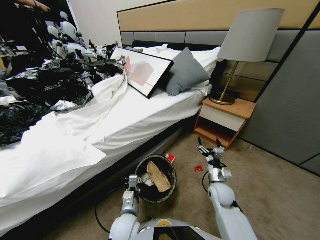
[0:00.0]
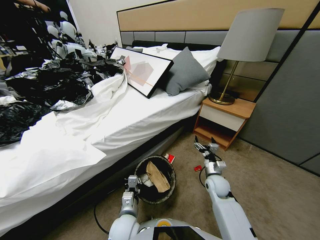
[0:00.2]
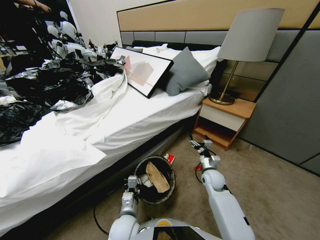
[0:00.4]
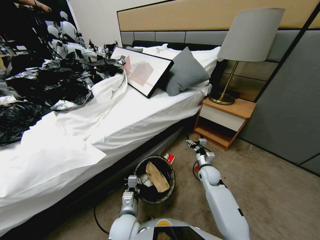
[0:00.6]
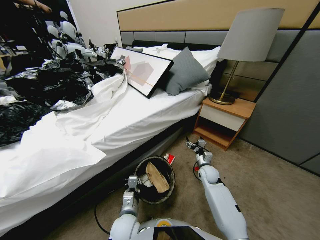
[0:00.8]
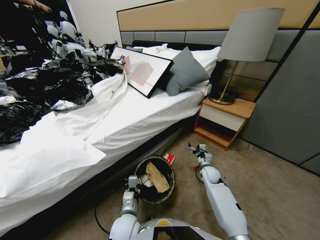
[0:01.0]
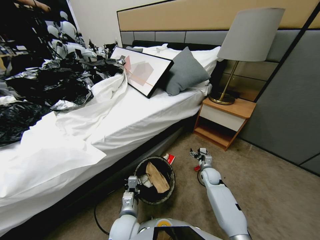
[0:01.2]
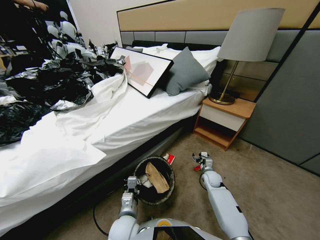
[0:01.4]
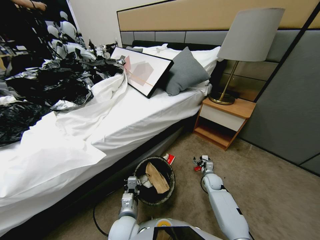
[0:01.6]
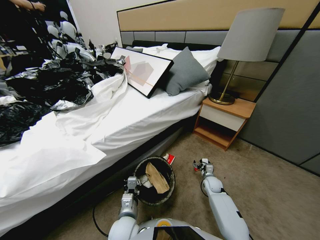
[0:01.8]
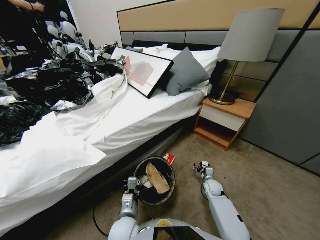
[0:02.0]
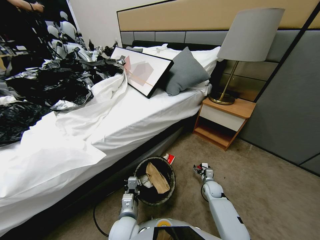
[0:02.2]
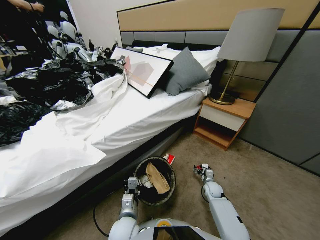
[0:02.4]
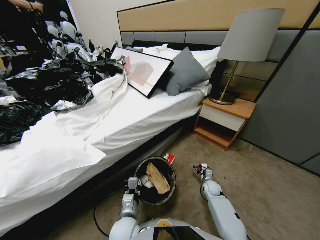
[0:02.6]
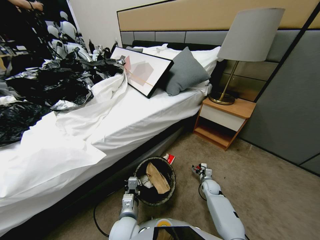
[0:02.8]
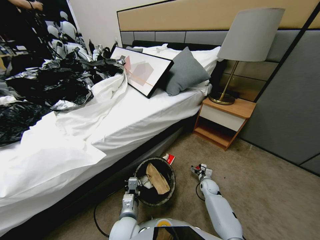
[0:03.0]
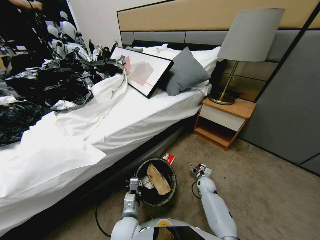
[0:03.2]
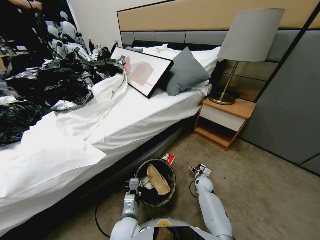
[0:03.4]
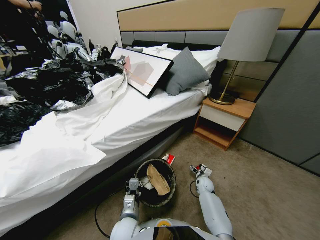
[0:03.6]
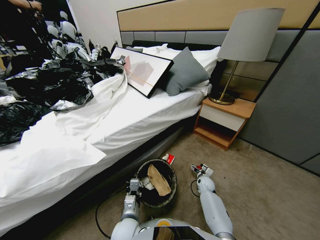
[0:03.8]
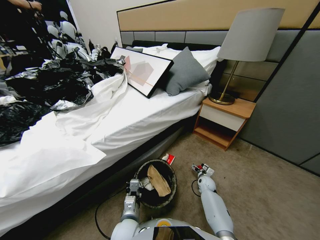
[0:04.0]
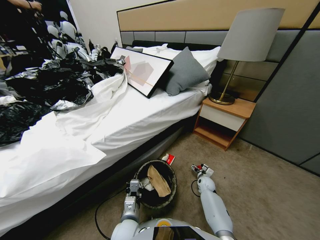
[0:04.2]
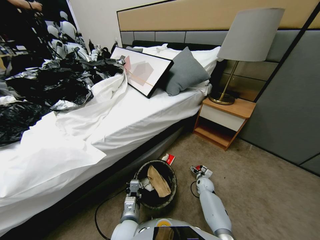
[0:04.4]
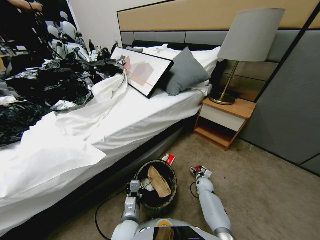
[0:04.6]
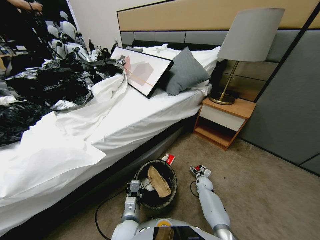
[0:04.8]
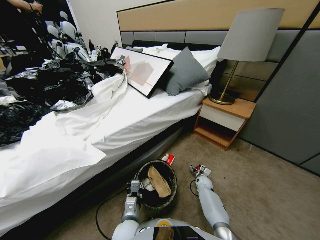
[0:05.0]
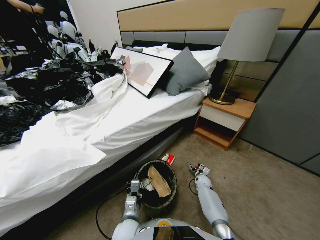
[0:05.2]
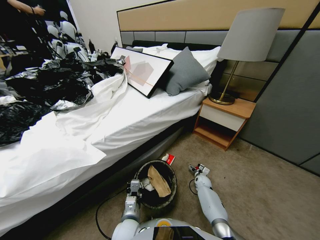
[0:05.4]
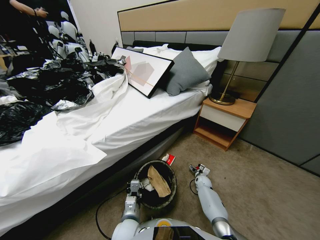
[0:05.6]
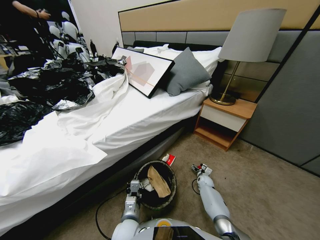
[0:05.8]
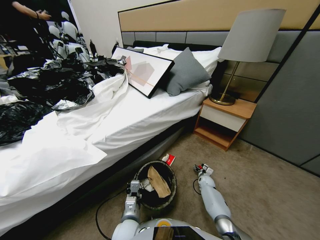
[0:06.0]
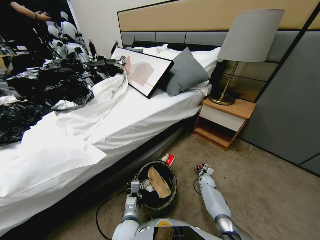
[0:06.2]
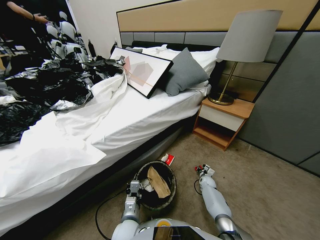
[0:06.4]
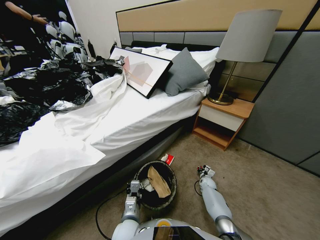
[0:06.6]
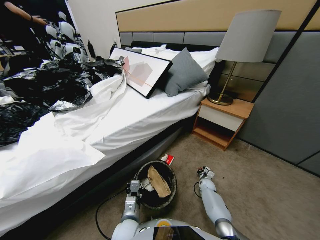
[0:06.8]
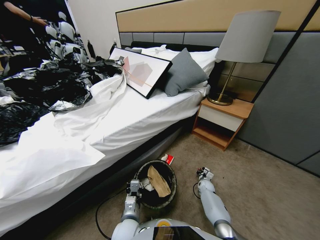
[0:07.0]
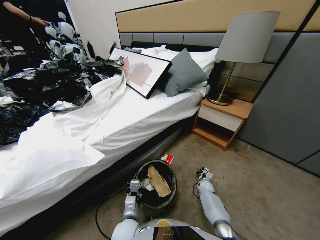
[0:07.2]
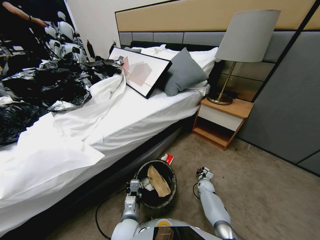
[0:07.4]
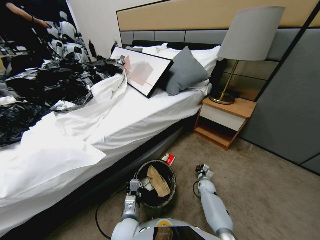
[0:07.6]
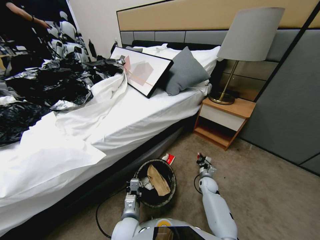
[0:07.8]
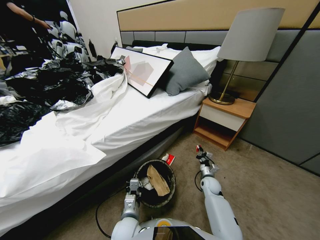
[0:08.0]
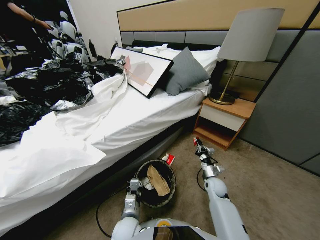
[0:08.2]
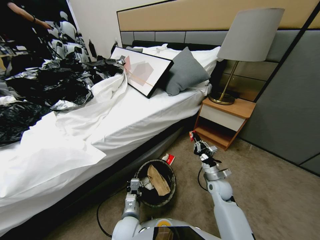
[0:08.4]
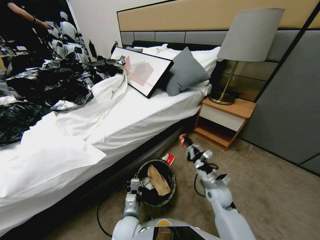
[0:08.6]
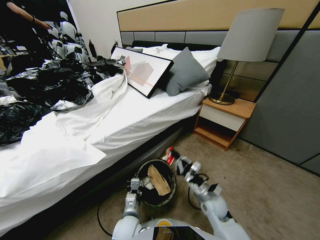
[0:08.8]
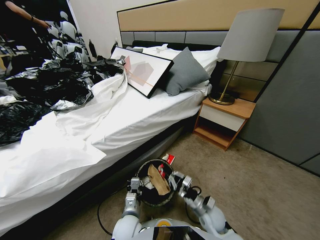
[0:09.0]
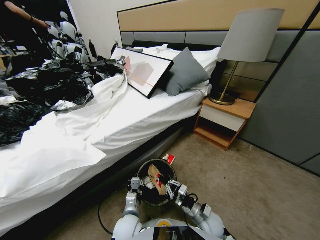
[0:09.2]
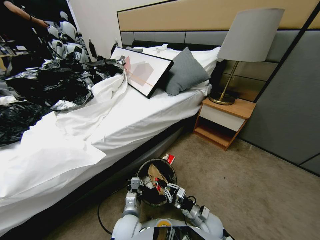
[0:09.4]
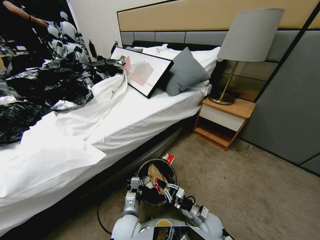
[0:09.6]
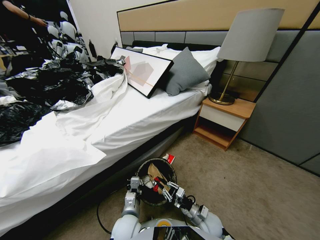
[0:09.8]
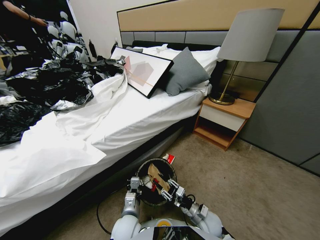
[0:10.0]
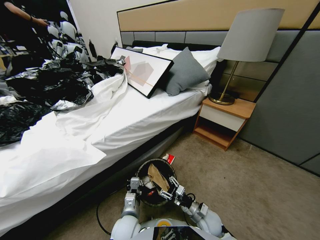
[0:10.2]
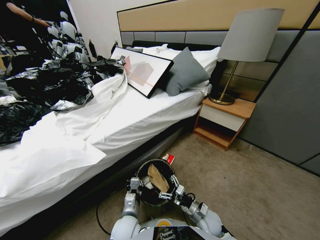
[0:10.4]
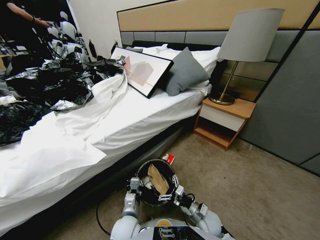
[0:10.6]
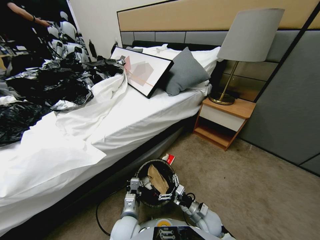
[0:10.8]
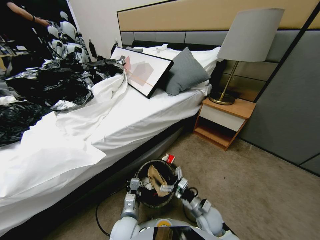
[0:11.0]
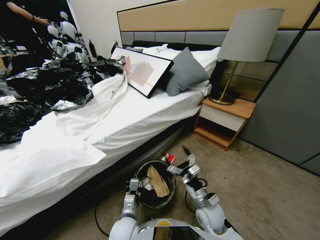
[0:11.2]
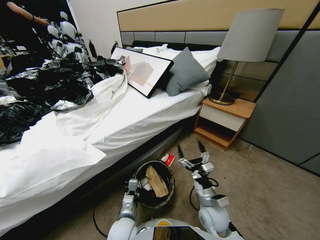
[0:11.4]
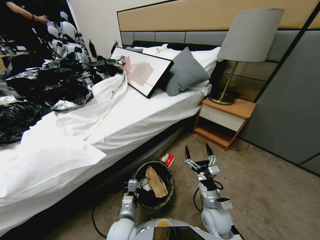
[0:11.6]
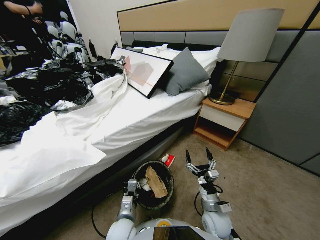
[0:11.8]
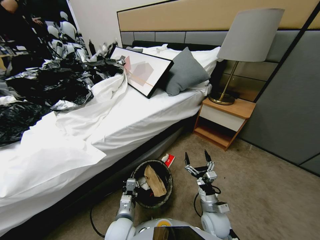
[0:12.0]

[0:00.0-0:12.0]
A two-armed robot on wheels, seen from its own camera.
Task of the whole recording: Pick up the trash bin, then pick up the garbage from the floor and place it into the trash bin.
0:00.0 to 0:01.6: The right gripper travels downward and forward by approximately 15 cm.
0:03.0 to 0:04.4: The grippers stay close to where they were, moving slightly.
0:04.4 to 0:06.0: The right gripper closes.
0:06.0 to 0:07.6: The right gripper moves upward, approximately 5 cm, and closes.
0:07.6 to 0:09.0: The right gripper travels backward, upward and to the left by approximately 20 cm.
0:09.0 to 0:10.4: The right gripper opens its fingers.

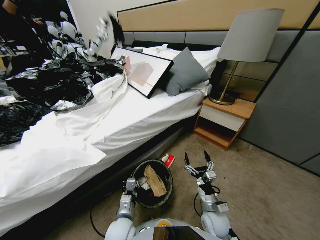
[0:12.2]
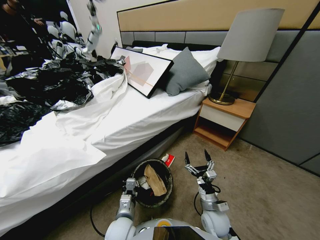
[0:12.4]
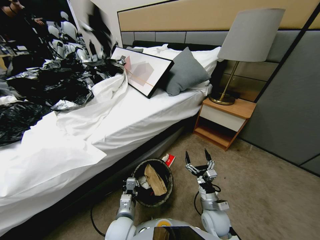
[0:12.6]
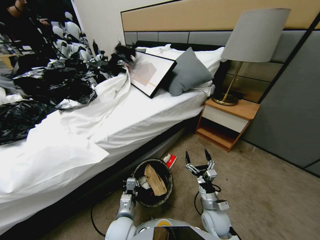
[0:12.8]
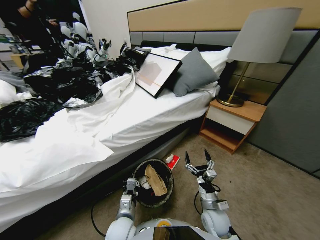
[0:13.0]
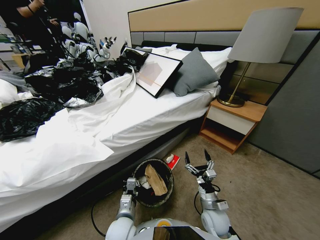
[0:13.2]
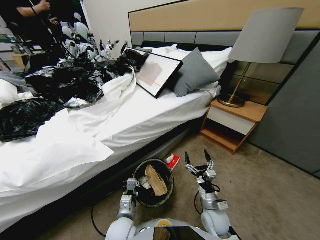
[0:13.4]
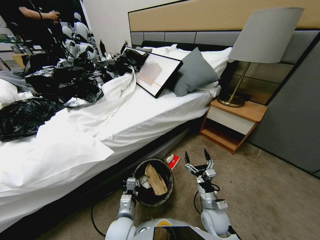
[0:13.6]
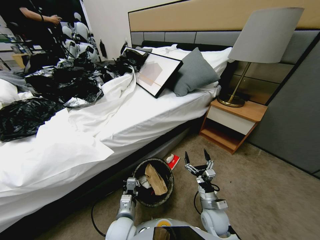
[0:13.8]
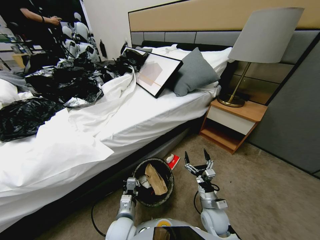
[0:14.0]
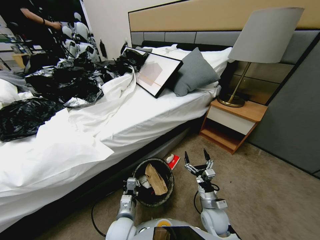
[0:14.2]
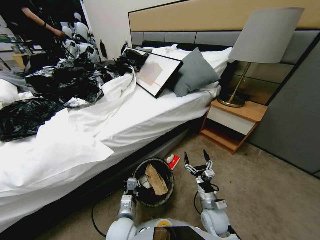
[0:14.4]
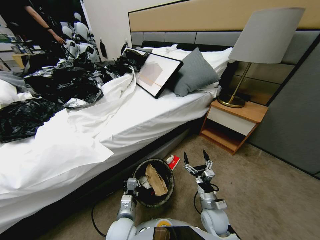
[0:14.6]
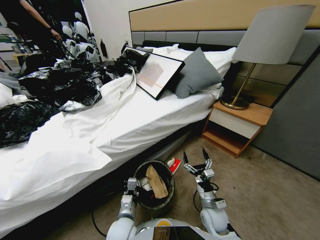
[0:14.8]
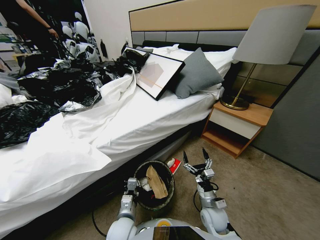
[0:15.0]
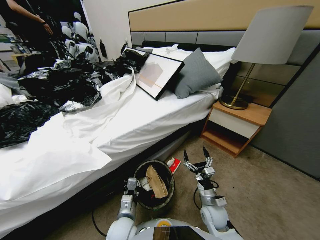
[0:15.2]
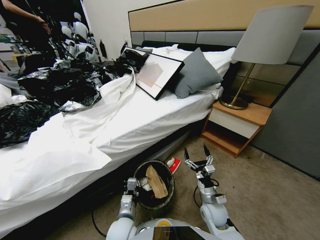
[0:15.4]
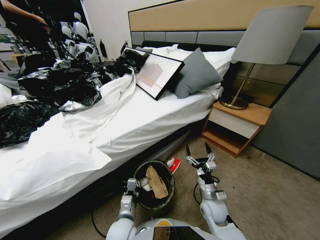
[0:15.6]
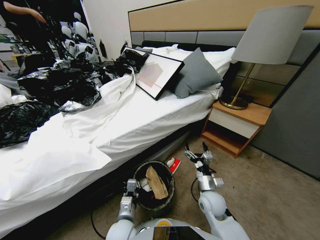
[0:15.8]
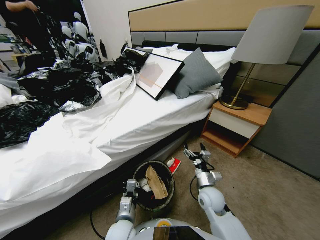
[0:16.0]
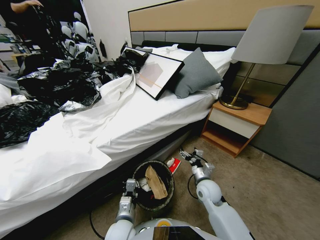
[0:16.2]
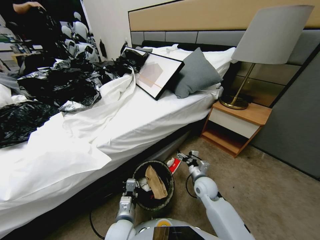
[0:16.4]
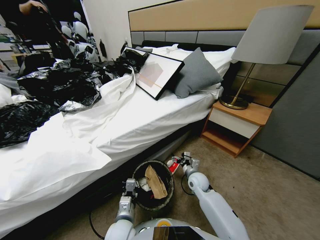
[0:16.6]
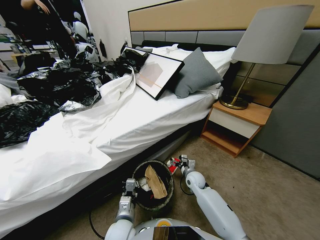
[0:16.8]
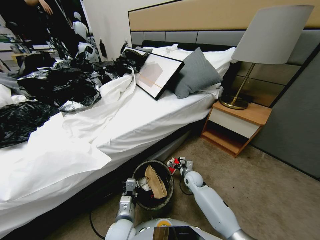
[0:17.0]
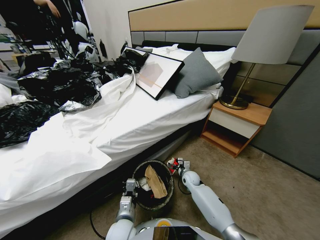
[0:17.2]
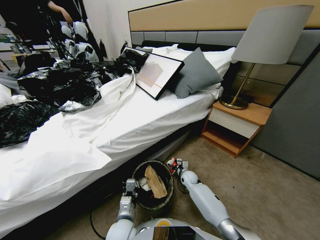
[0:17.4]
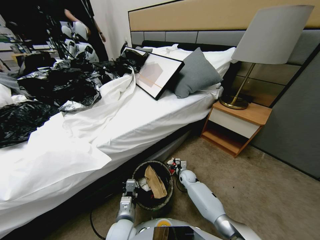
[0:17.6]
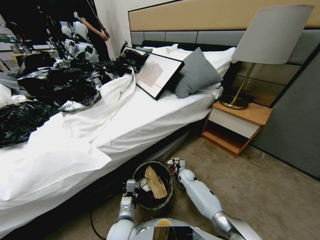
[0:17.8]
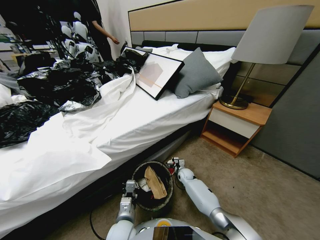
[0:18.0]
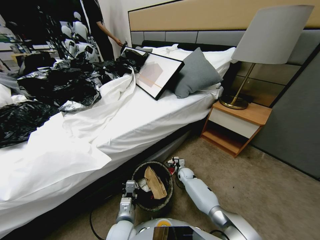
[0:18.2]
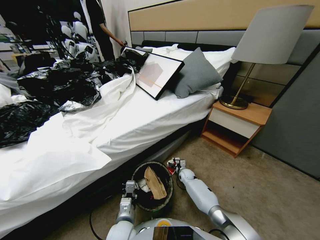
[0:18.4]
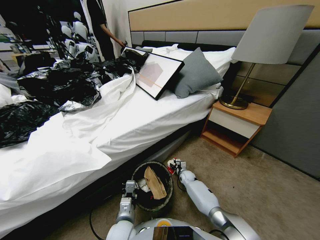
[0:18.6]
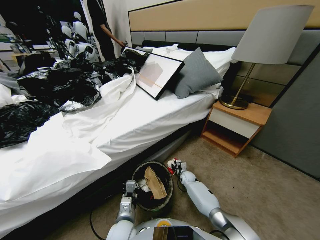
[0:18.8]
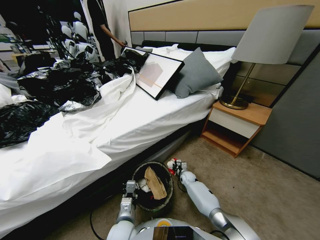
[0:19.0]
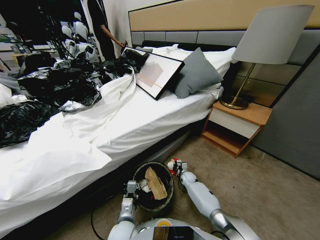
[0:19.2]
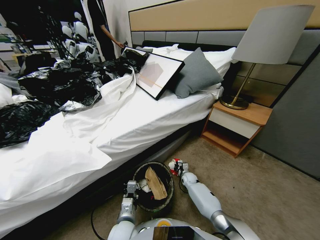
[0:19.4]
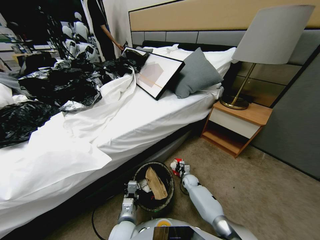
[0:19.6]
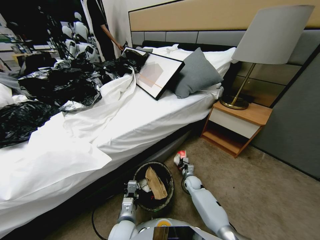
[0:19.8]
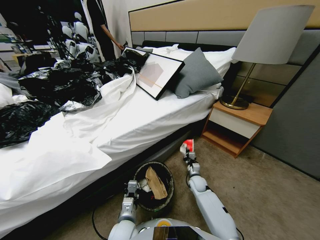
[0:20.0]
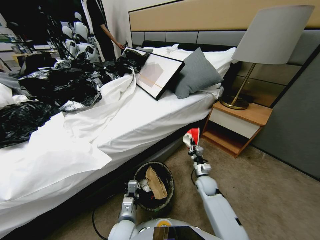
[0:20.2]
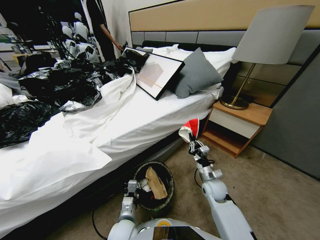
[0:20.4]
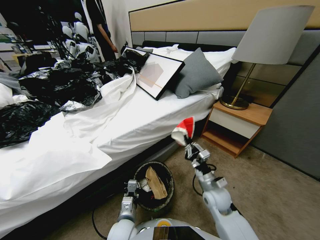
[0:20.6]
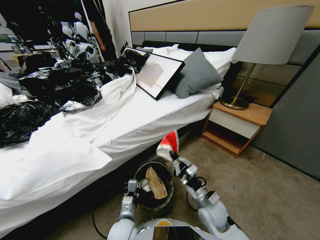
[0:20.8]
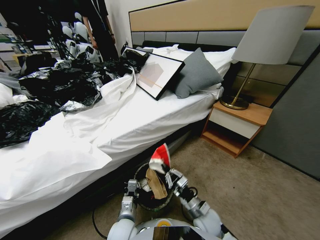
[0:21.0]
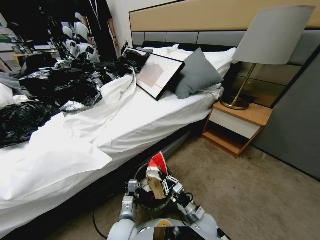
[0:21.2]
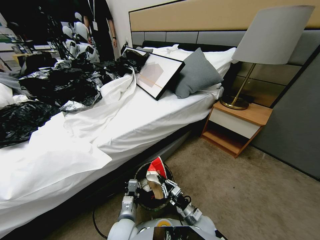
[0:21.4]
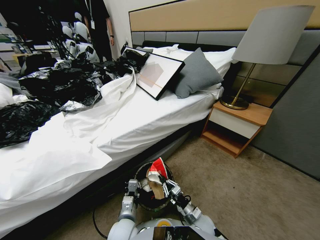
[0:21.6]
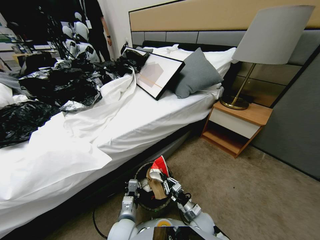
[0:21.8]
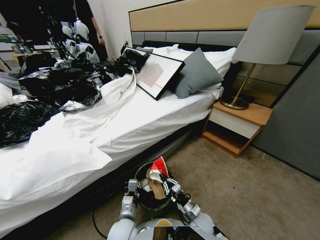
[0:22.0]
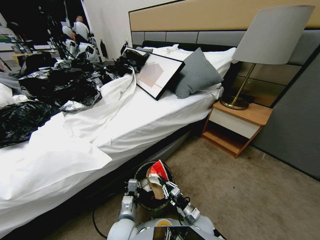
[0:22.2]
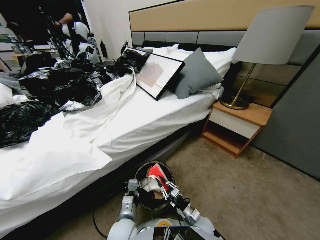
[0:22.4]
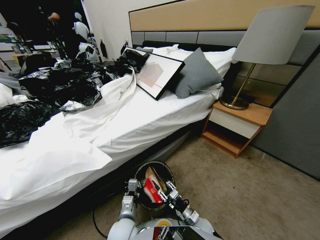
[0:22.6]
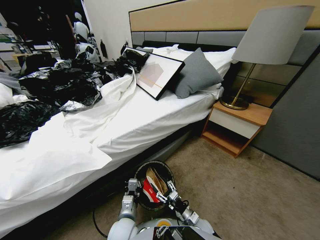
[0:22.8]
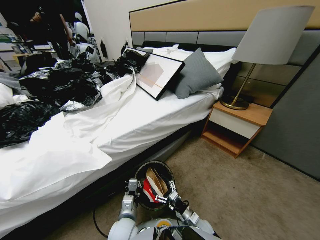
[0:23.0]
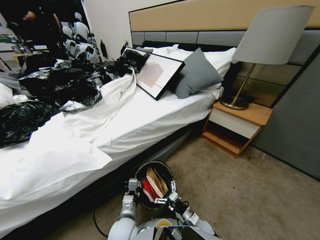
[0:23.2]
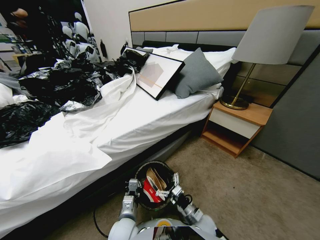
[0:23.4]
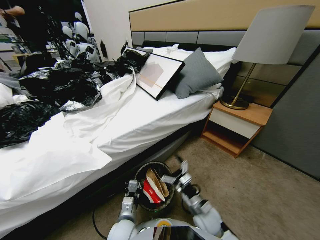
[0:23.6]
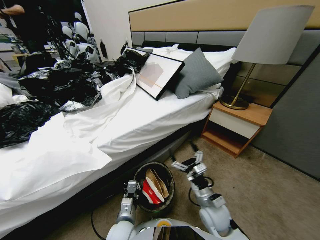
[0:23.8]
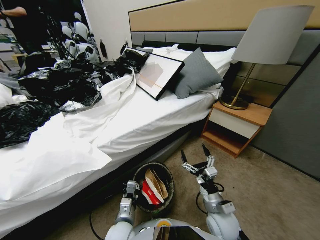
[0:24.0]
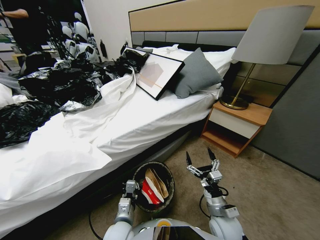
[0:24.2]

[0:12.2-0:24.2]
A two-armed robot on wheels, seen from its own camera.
Task of the whole recording: Pick up the trash bin, then pick up the garbage from the floor and place it into the trash bin.
0:15.2 to 0:16.6: The right gripper shifts about 15 cm forward.
0:16.6 to 0:18.2: The right gripper travels downward and forward by roughly 15 cm.
0:18.2 to 0:19.8: The right gripper heads backward, covering some 5 cm, and closes up.
0:19.8 to 0:21.2: The right gripper is displaced backward by about 20 cm.
0:21.2 to 0:22.6: The right gripper opens.
0:22.6 to 0:24.2: The right gripper is displaced upward and to the right by roughly 15 cm, and opens.
